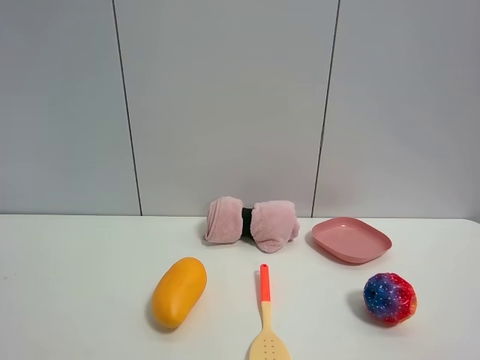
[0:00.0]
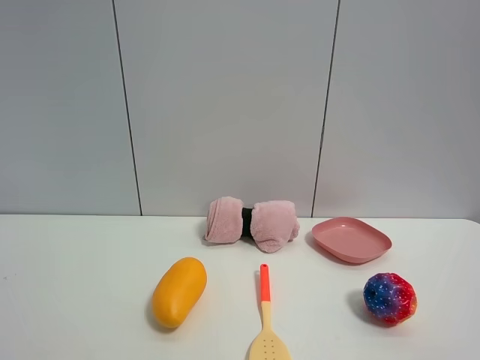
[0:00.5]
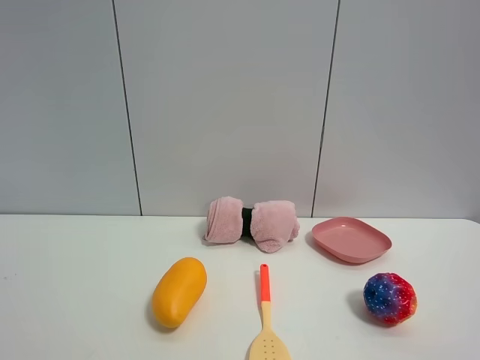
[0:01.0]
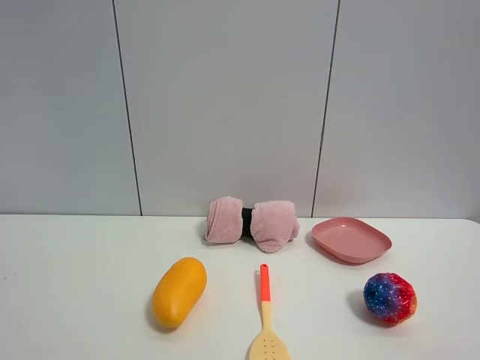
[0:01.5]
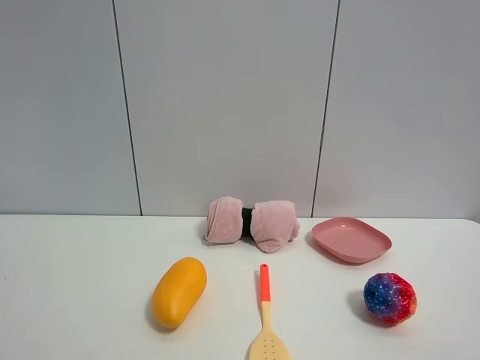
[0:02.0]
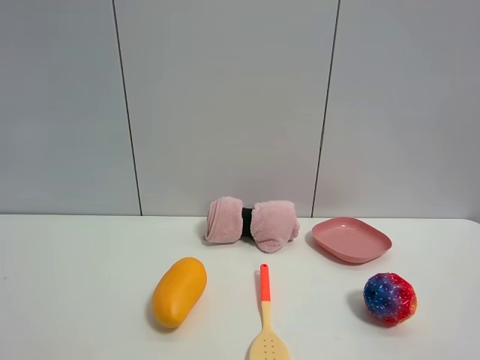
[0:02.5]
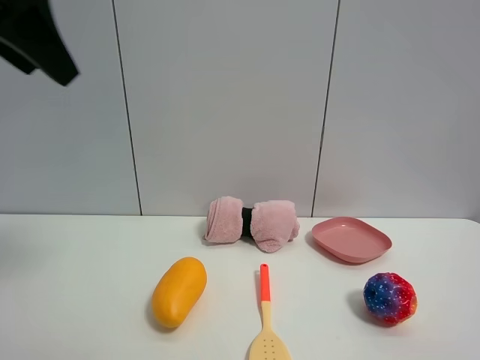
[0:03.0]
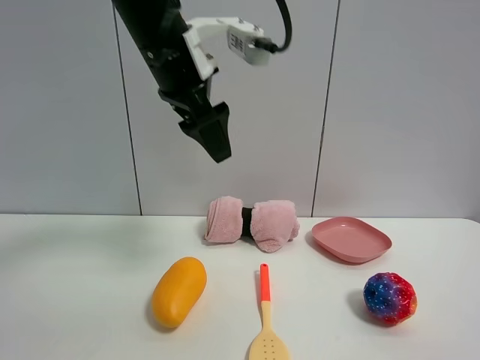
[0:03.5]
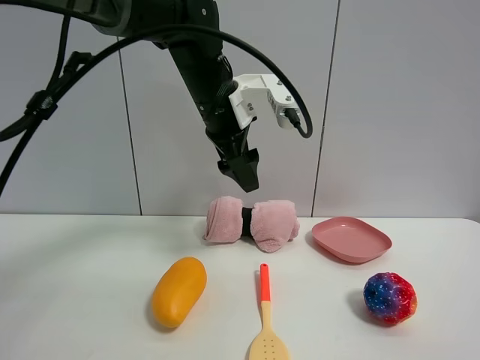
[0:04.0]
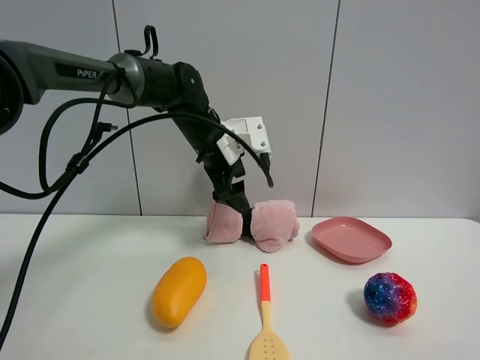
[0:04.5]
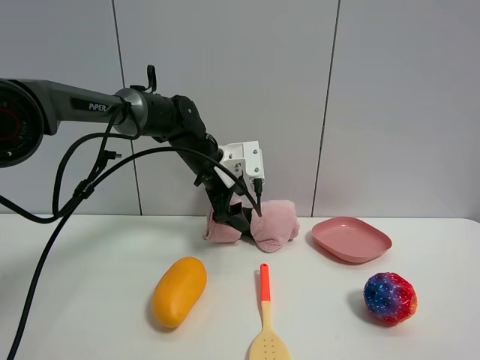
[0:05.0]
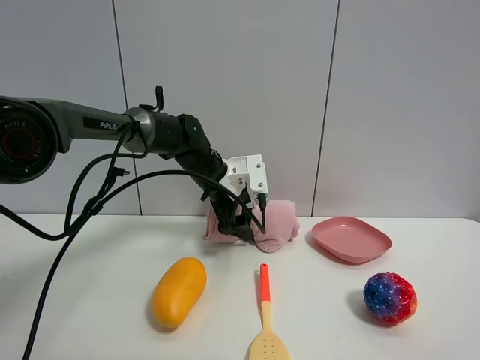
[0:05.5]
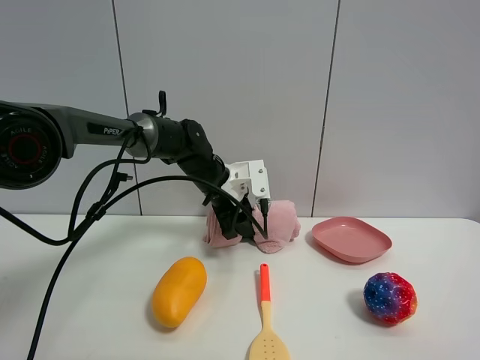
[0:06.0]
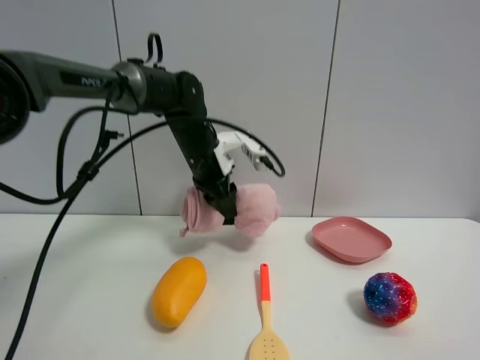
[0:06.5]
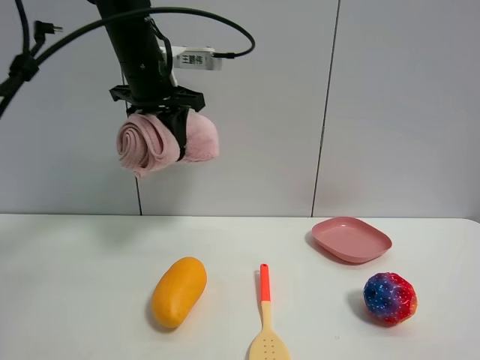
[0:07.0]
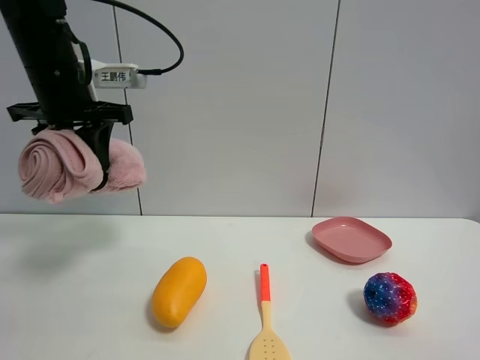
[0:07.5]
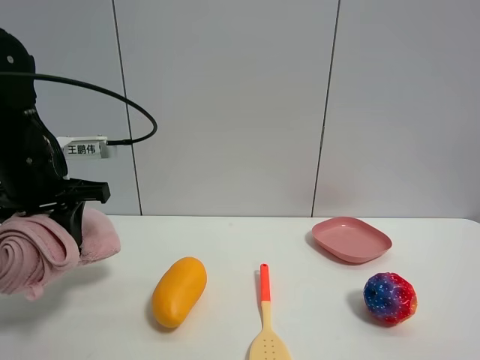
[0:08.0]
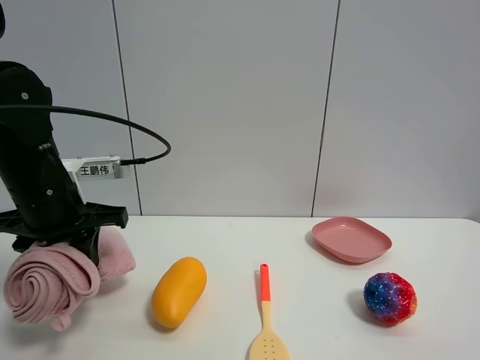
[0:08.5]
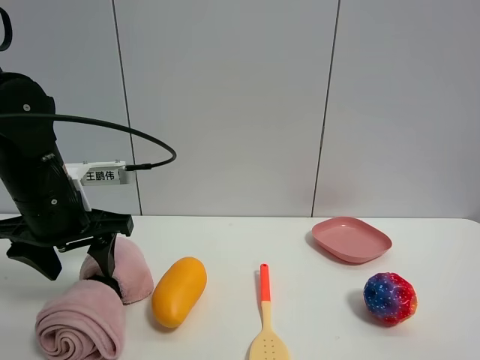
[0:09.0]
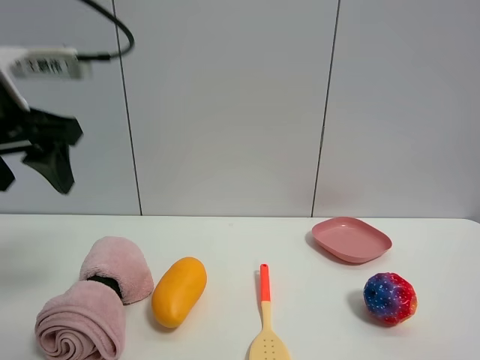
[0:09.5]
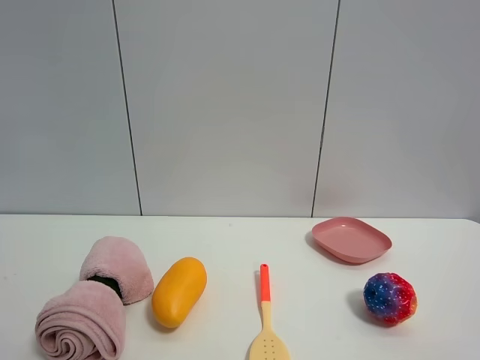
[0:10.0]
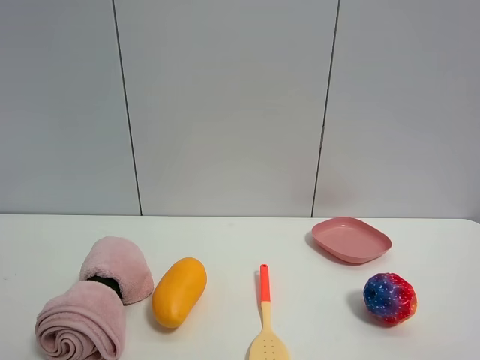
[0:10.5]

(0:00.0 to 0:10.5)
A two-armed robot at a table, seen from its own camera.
Task of the whole recording: the gripper move the object.
Step, 0:00.0 - 0:06.0: Grasp the pink towel with the left gripper.
Step, 0:06.5 - 0:09.0: Place the pink towel on the table with the left gripper.
0:00.0 - 0:02.0: Neither gripper changes place.
0:02.0 - 0:04.0: The left gripper shifts approximately 50 cm forward and to the right.
0:04.0 - 0:06.5: The left gripper is displaced downward and forward by approximately 10 cm, and closes up.
0:06.5 - 0:08.5: The left gripper is displaced backward and to the left by about 20 cm.
0:08.5 - 0:10.5: The left gripper travels backward and upward by approximately 35 cm, and opens its fingers.

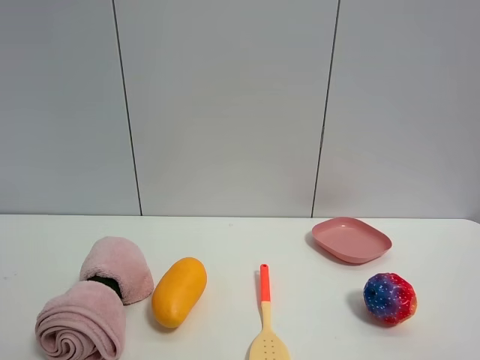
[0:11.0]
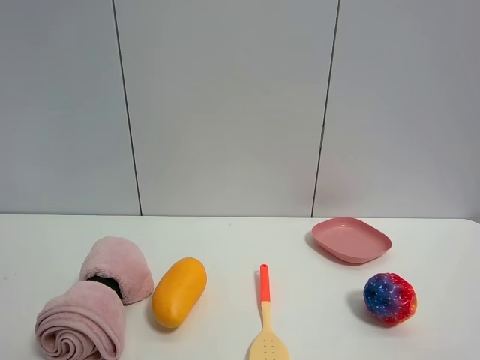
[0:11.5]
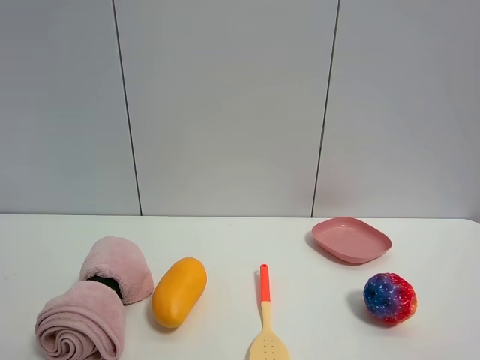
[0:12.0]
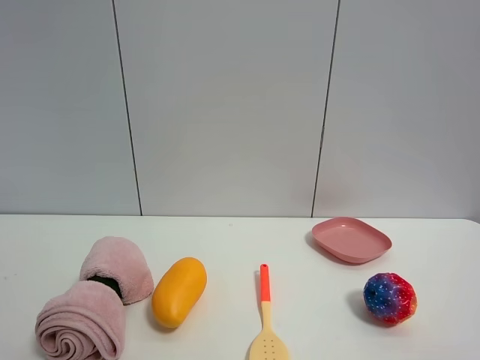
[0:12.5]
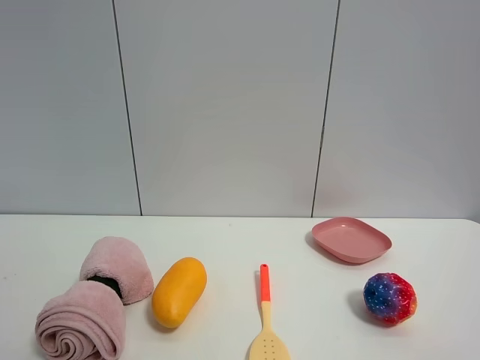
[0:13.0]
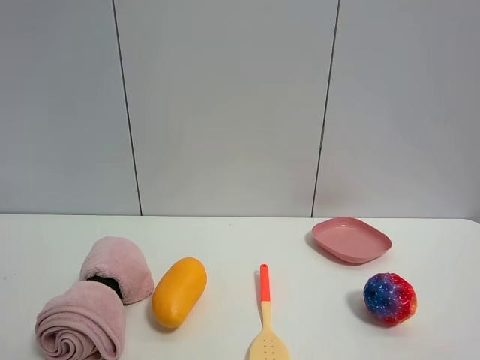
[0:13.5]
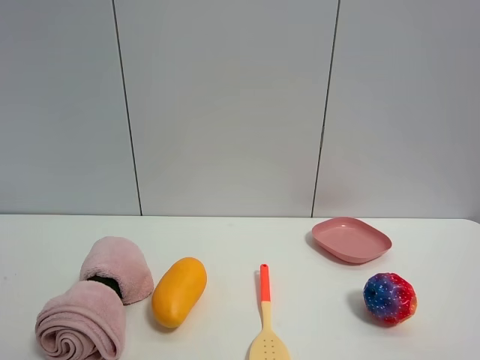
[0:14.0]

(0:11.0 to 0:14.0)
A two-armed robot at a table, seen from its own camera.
Task of the whole recording: the gripper move the object.
0:11.0 - 0:14.0: Both grippers stay put.

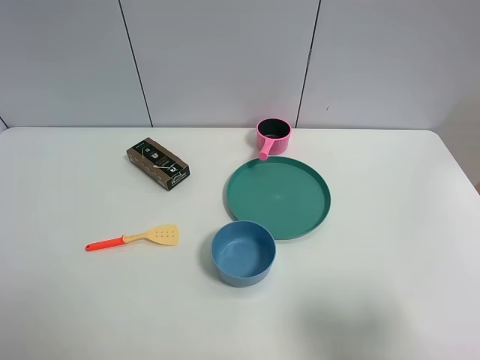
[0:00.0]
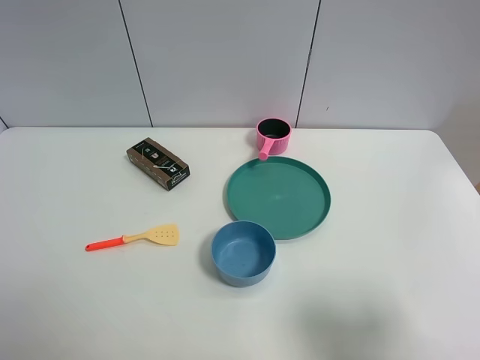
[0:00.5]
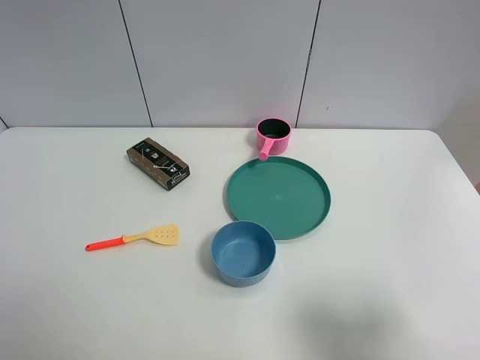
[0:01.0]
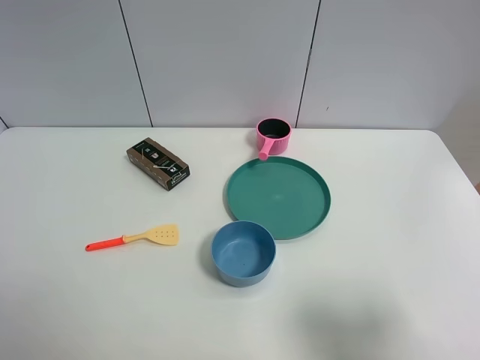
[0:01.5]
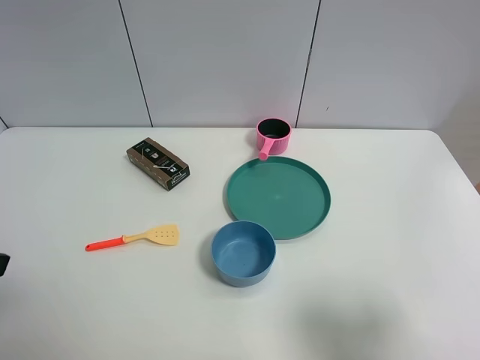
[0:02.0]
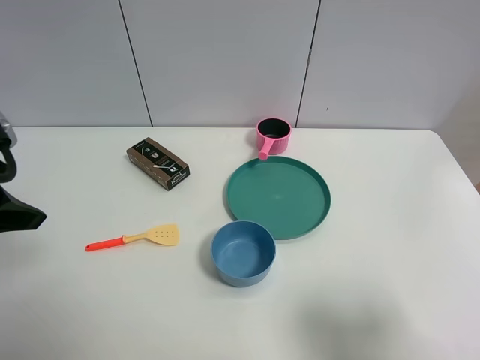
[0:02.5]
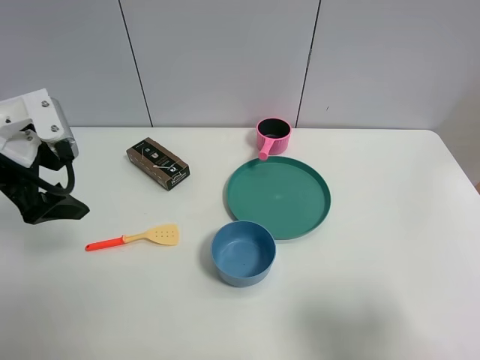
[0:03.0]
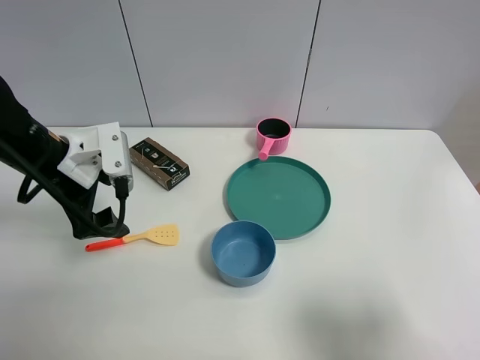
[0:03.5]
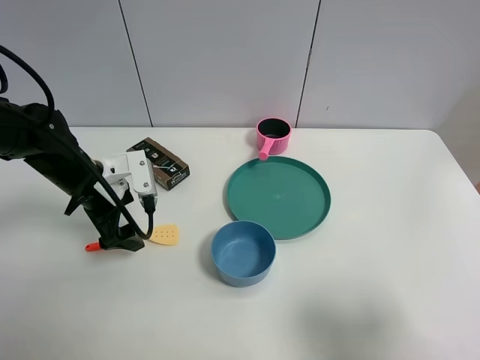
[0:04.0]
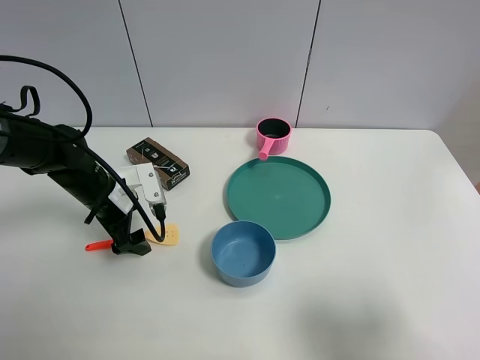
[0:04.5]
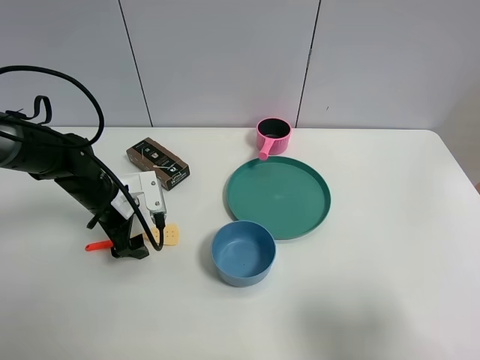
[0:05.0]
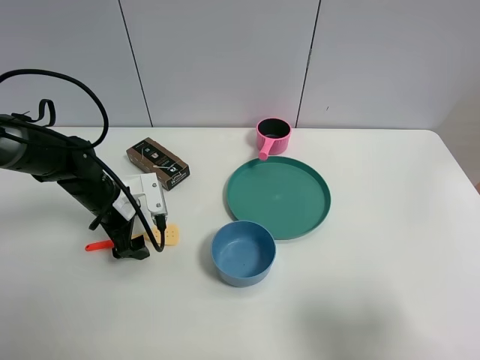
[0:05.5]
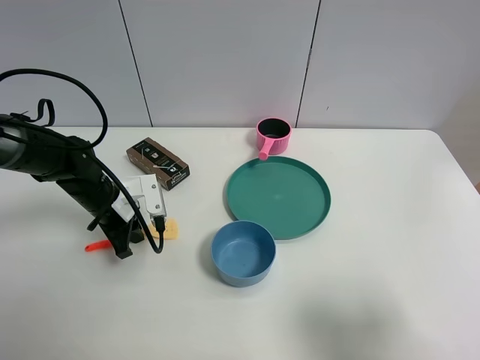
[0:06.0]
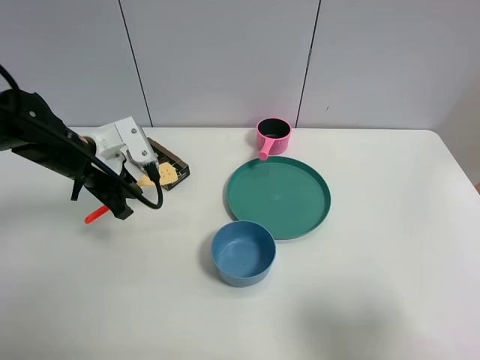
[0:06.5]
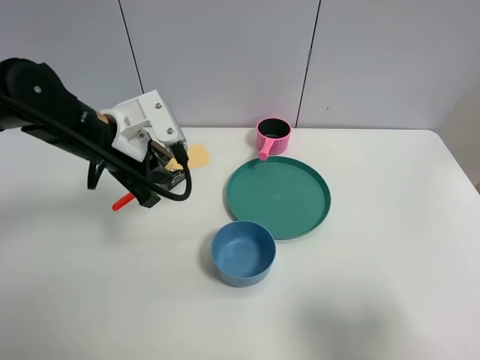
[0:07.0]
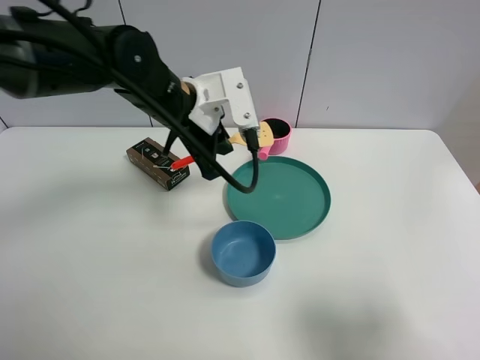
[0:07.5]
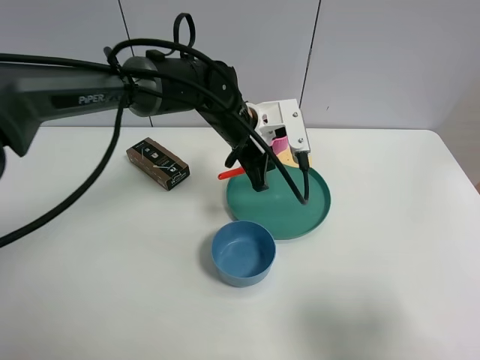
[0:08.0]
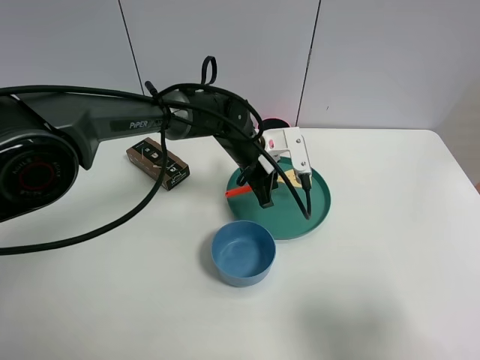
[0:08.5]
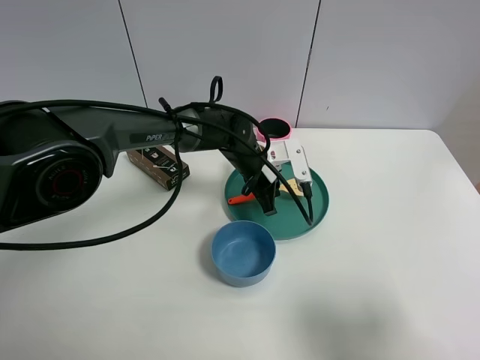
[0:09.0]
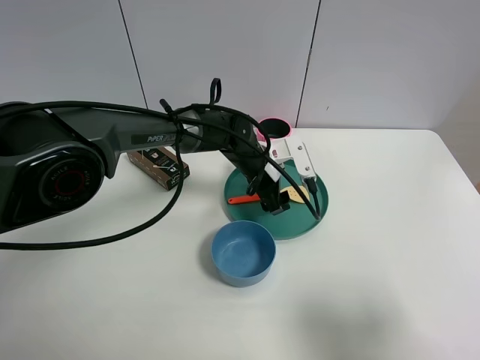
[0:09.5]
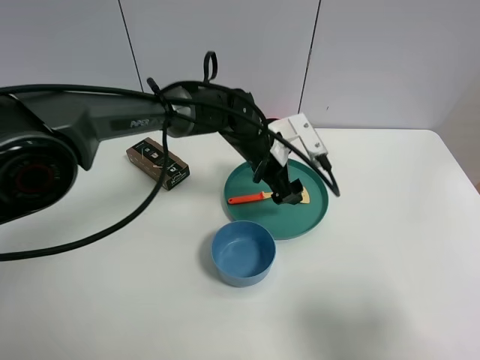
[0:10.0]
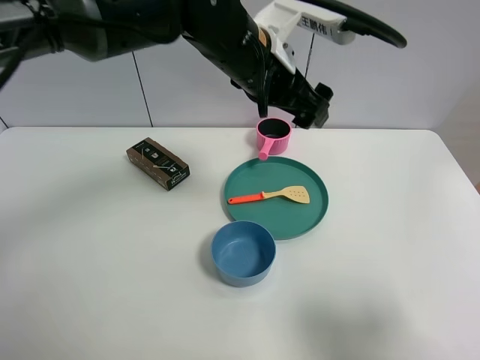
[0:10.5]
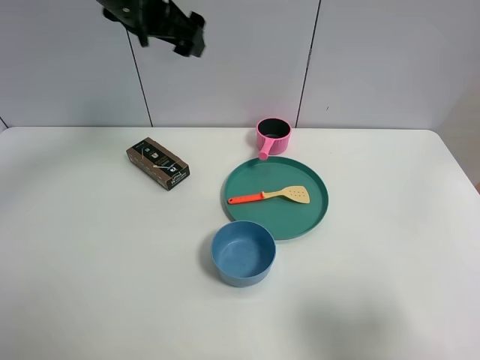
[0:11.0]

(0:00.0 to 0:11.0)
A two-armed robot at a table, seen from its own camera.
Task of the whole recording: the gripper move the object.
Step, 0:00.0 - 0:06.0: Grasp the cooking shovel with the left gripper.
Step, 0:06.5 - 0:09.0: Place the cooking shovel into the green plate with the left gripper.
0:02.0 - 0:03.5: The left gripper is displaced forward and downward by roughly 20 cm.
0:03.5 - 0:05.5: The left gripper is displaced downward by roughly 15 cm.
0:05.5 - 0:07.5: The left gripper heads upward and to the right, covering about 20 cm, and closes.
0:07.5 - 0:09.0: The left gripper shifts approximately 15 cm downward and to the right.
0:09.0 - 0:11.0: The left gripper travels upward and to the left by roughly 30 cm, and opens.

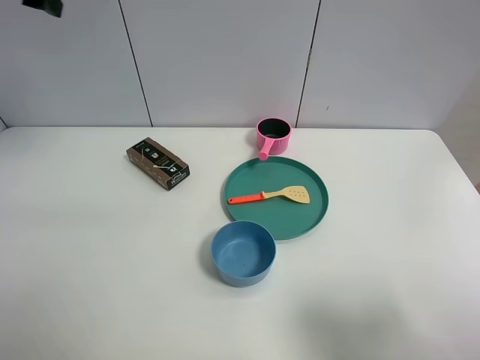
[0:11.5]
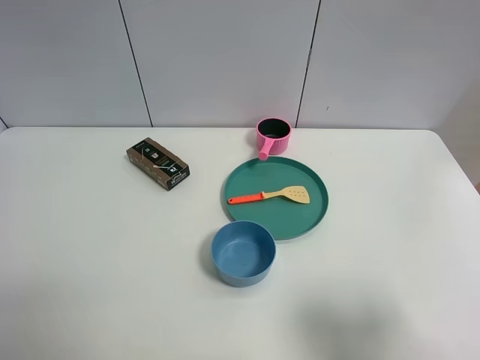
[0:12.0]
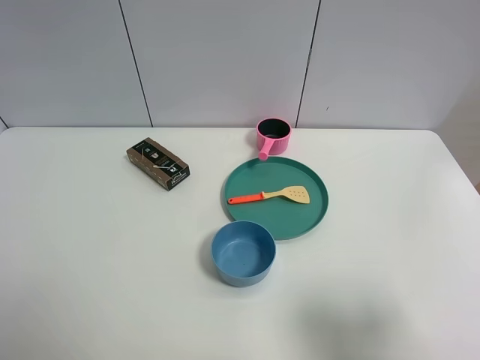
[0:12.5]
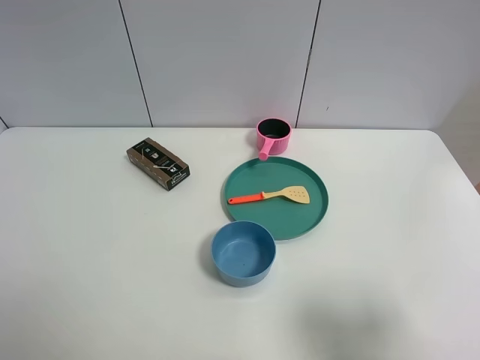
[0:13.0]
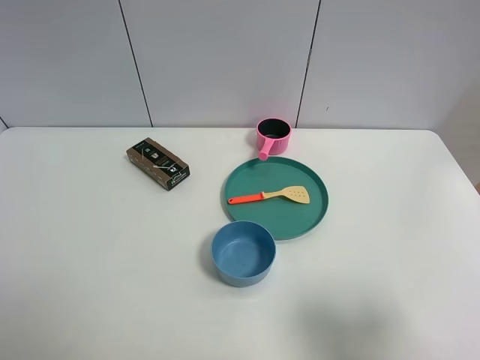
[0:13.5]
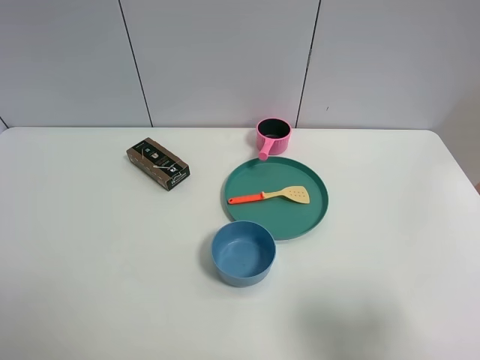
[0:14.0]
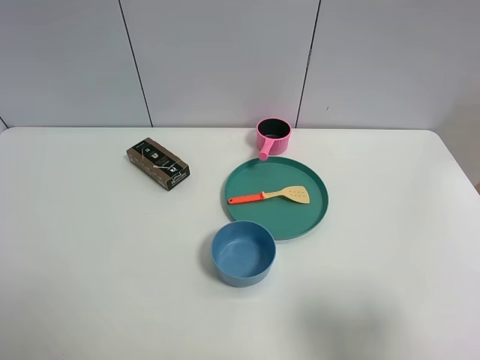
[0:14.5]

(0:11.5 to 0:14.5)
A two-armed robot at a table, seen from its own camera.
Task of the whole recording: the gripper move the object.
0:11.5 - 0:13.0: The left gripper travels backward by some 40 cm.
